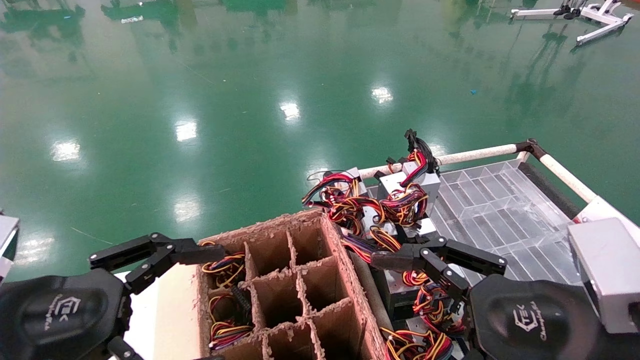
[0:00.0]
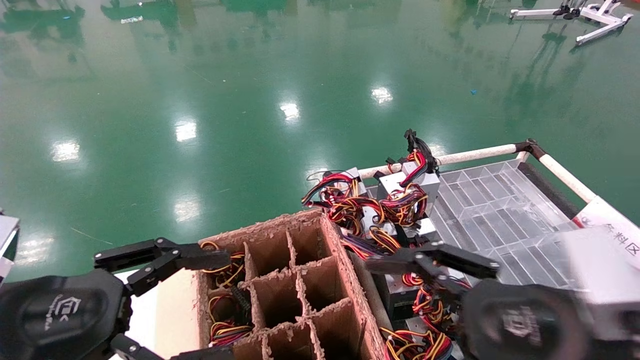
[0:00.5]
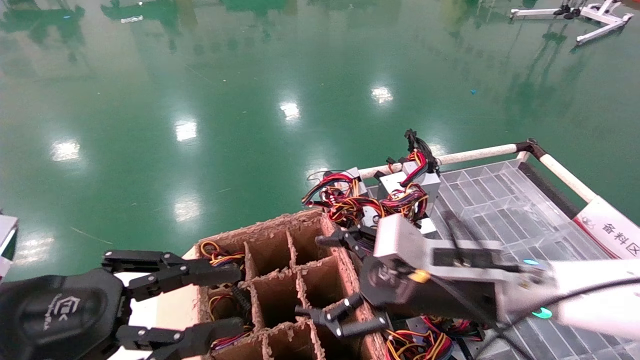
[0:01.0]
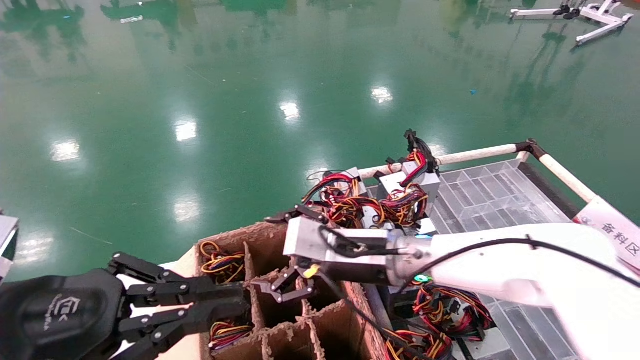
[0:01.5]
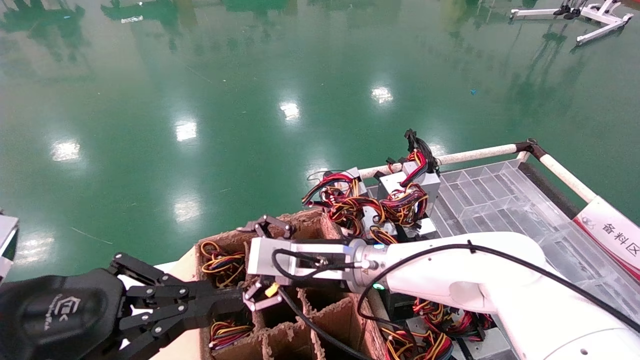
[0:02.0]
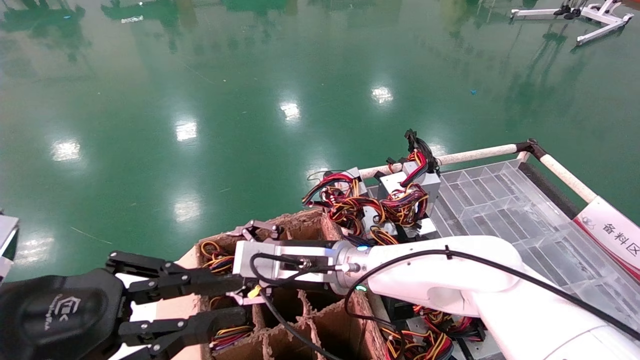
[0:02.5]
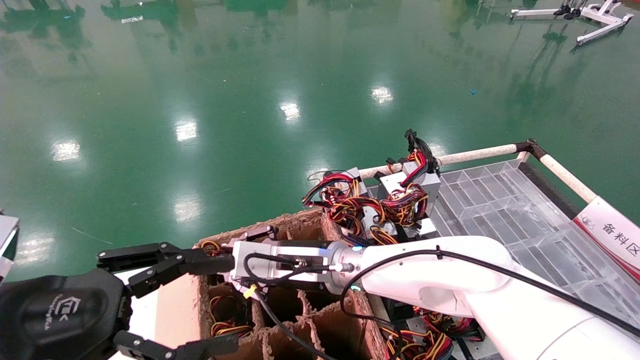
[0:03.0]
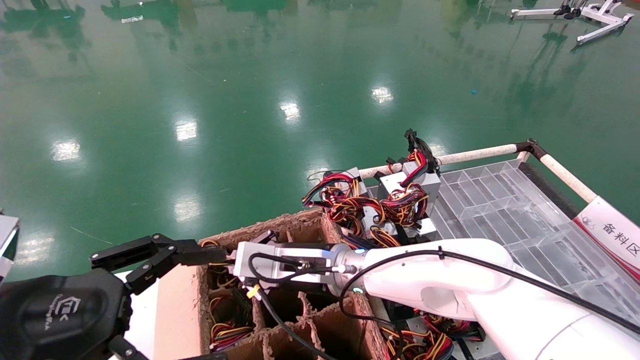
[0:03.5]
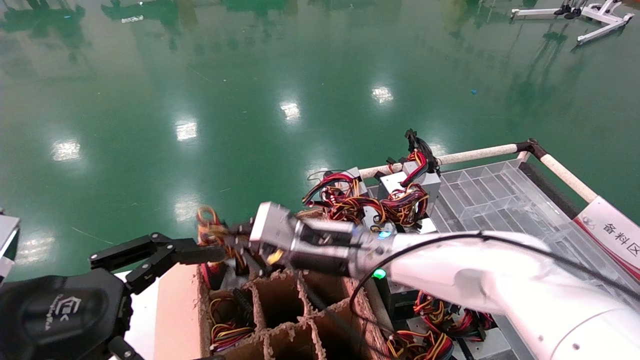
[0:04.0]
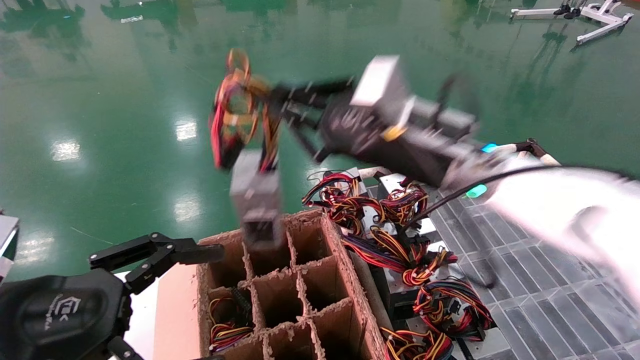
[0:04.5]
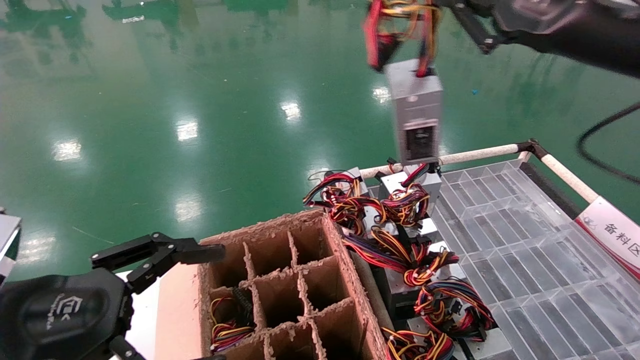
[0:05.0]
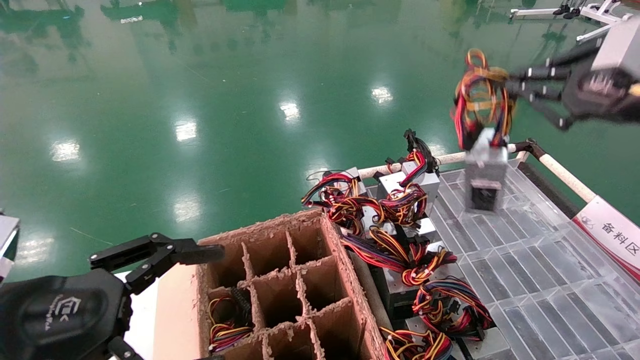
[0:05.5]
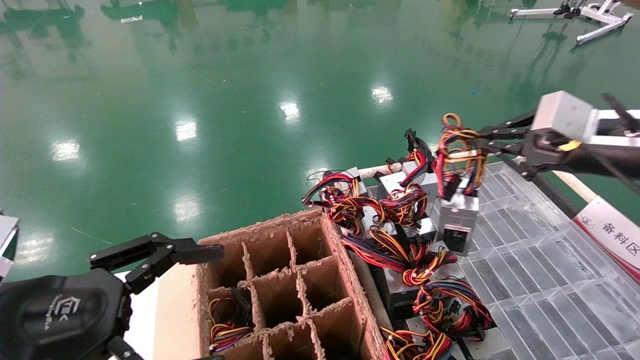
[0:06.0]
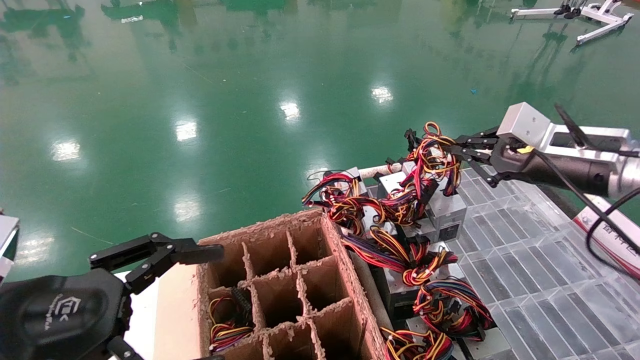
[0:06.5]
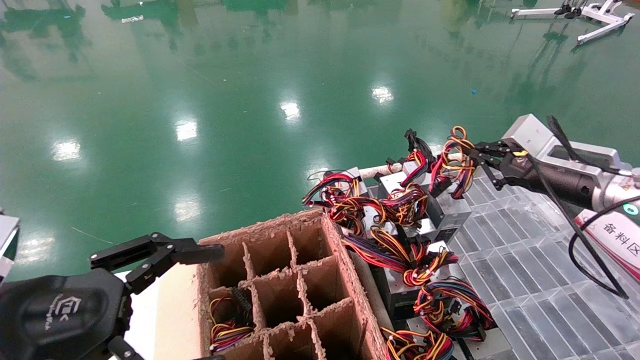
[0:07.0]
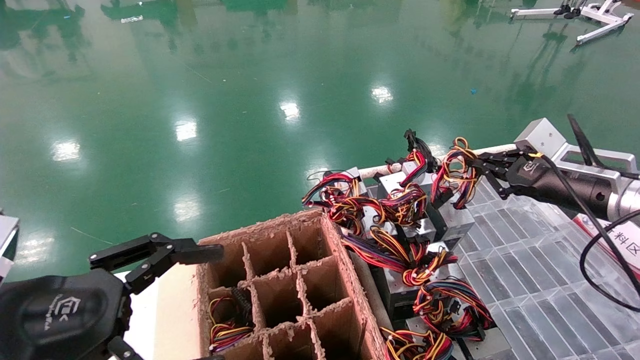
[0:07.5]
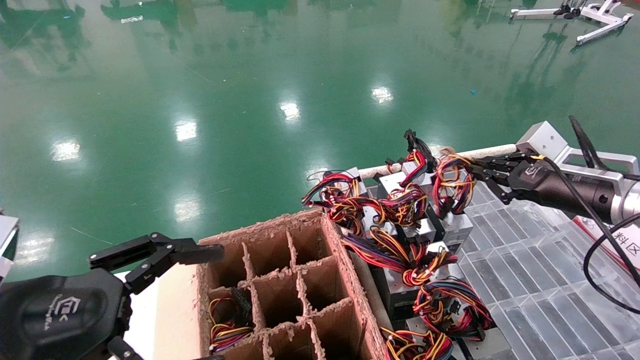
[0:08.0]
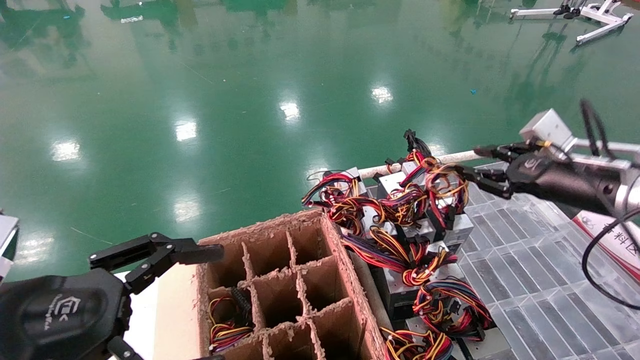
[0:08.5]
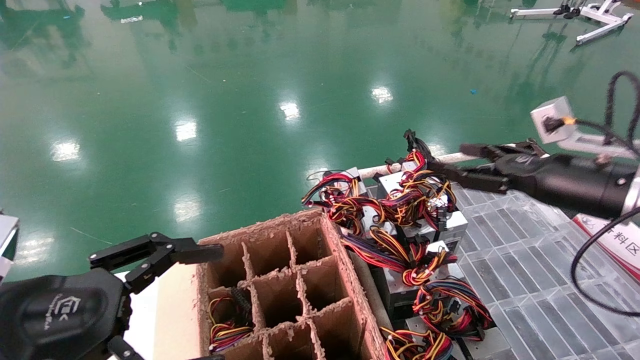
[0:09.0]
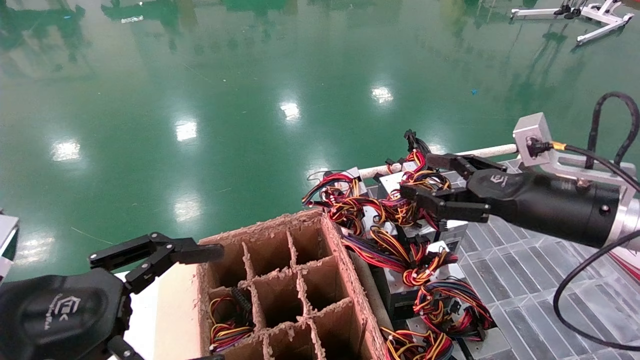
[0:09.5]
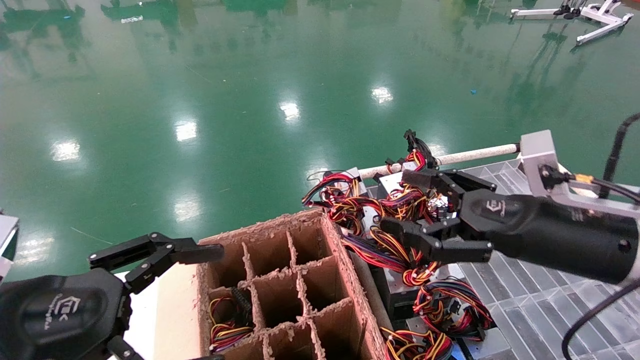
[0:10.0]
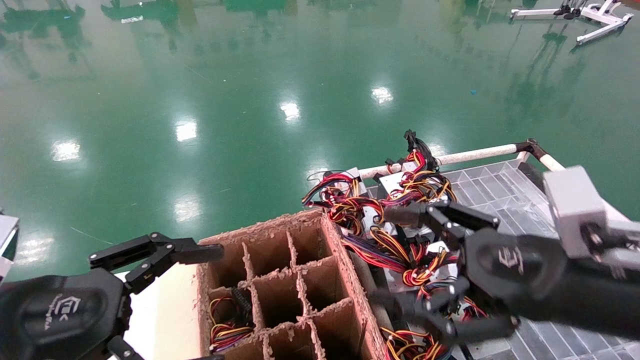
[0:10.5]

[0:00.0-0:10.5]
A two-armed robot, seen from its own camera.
Step, 0:01.0 to 0:03.5: Grab and lift the power supply from the large box.
Step, 0:04.0 to 0:08.0: Place the power supply on the operating table.
0:00.0 to 0:02.0: The right gripper heads forward and to the left, covering some 30 cm; the left gripper closes its fingers.
0:02.0 to 0:04.0: The right gripper closes up. Meanwhile the left gripper opens.
0:04.0 to 0:06.5: The right gripper shifts roughly 30 cm to the right.
0:08.5 to 0:10.5: The right gripper moves backward and to the left, about 20 cm, and opens up.
